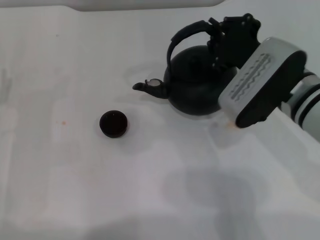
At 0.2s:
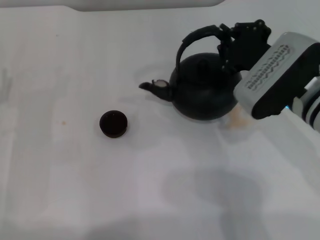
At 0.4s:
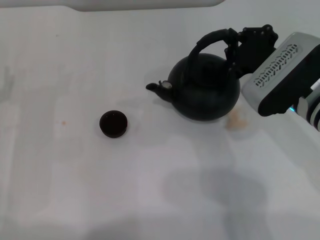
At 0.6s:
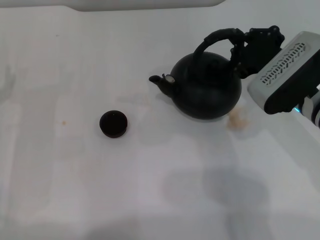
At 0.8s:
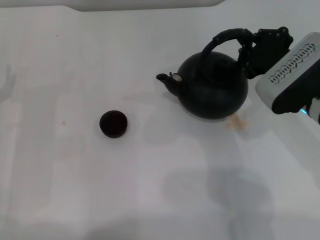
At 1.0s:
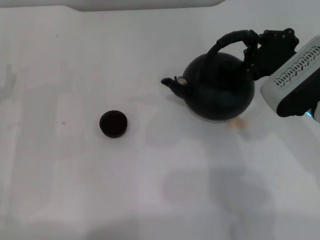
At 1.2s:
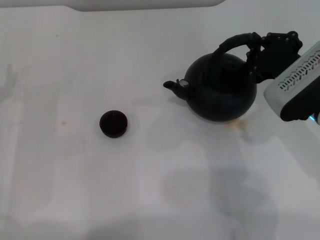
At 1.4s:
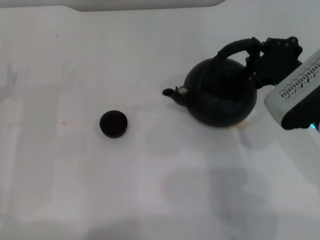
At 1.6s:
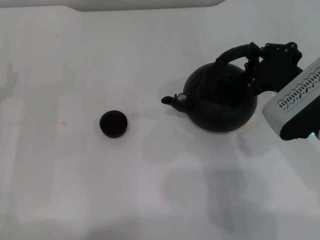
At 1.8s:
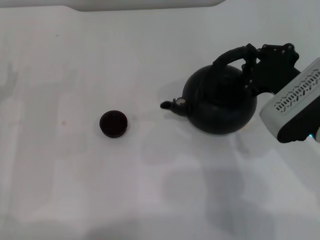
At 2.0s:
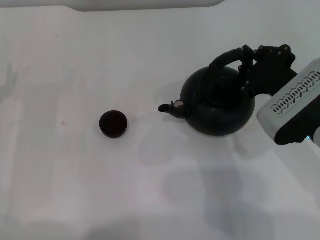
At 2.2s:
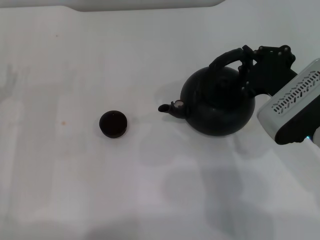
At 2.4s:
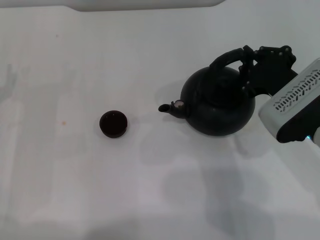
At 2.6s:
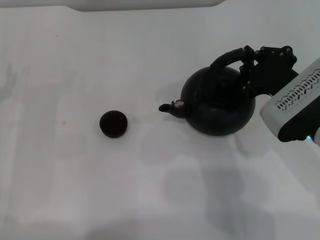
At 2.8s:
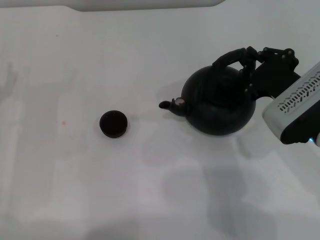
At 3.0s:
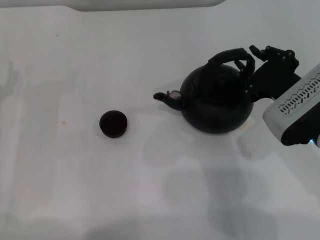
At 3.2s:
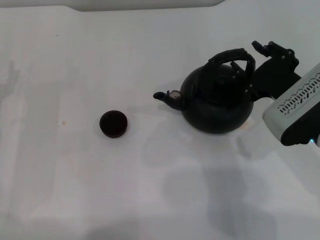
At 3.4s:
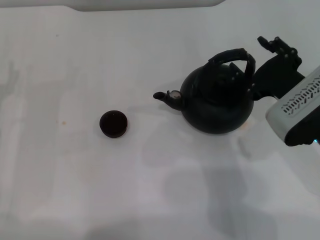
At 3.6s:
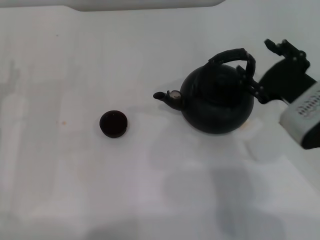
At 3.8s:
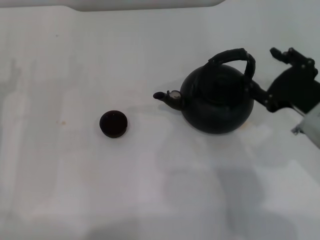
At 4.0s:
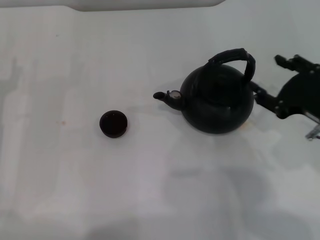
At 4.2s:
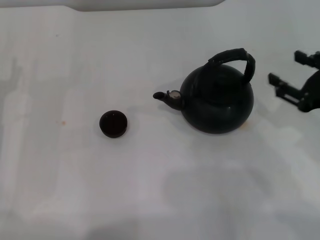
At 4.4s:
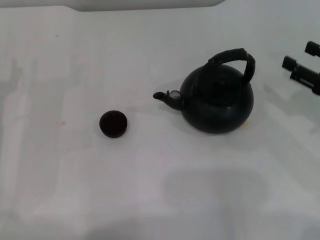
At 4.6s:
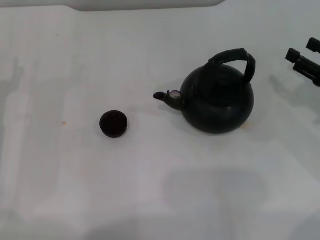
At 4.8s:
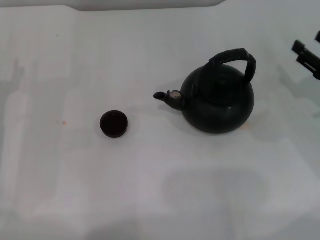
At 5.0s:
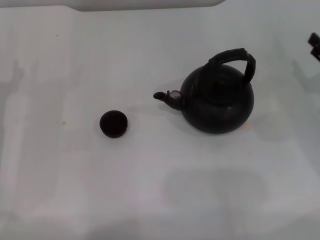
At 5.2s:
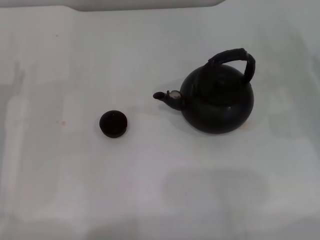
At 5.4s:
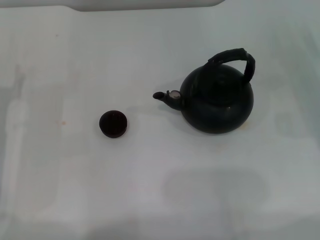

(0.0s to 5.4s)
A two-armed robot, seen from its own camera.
Task of the whole recording: Grasp the handle of the teapot with one hand and pour tea into the teacup.
Step, 0.0s - 3.8s: Put down the teapot with the right gripper.
0.0s - 1.4s: The right gripper moves approximately 5 cm.
1.4s - 2.8s: The grippers stay close to where they were, moving slightly.
2.8s - 4.0s: The right gripper ends up approximately 5 cm from where it was, and opens its fingers.
4.0s - 5.4s: The right gripper goes roughly 15 cm to the right, downward and forward.

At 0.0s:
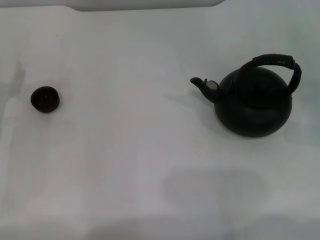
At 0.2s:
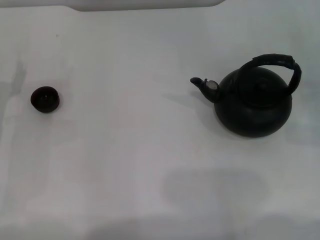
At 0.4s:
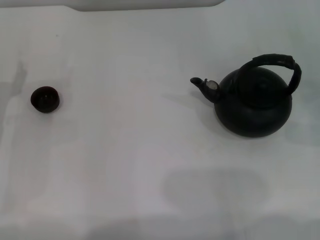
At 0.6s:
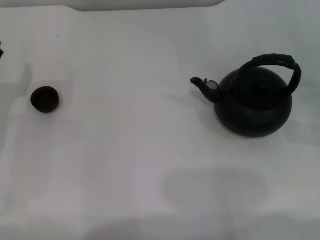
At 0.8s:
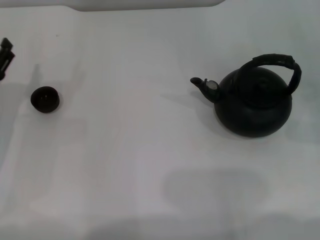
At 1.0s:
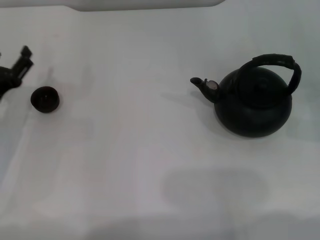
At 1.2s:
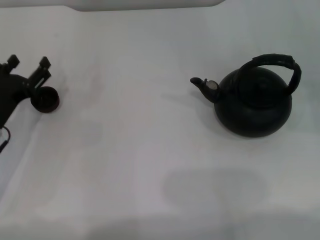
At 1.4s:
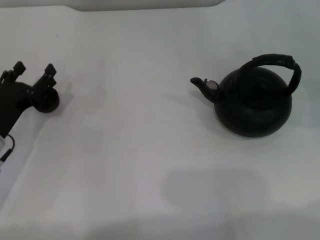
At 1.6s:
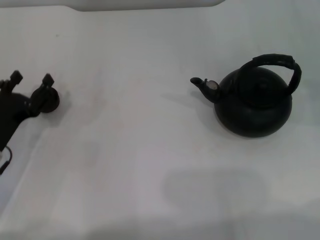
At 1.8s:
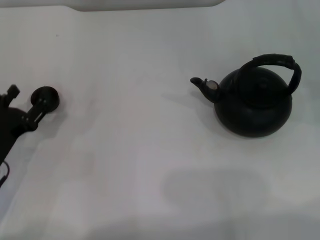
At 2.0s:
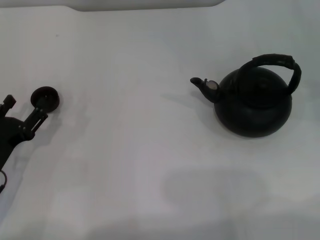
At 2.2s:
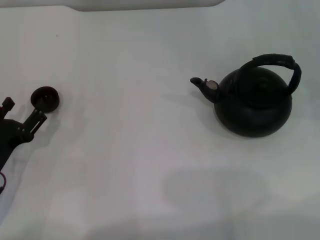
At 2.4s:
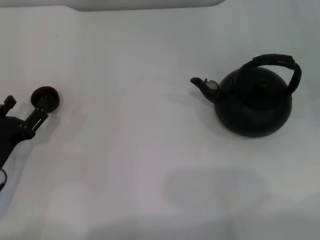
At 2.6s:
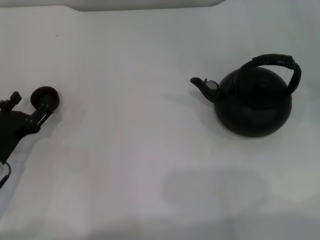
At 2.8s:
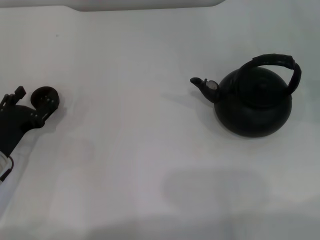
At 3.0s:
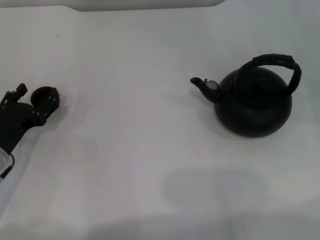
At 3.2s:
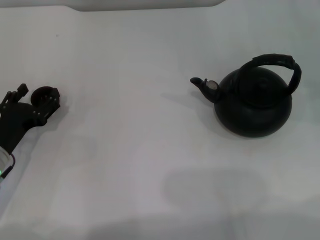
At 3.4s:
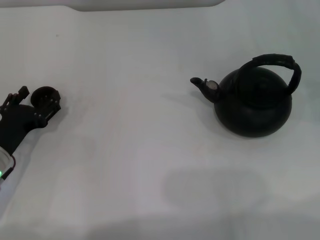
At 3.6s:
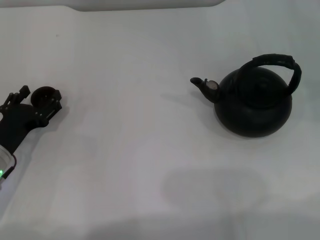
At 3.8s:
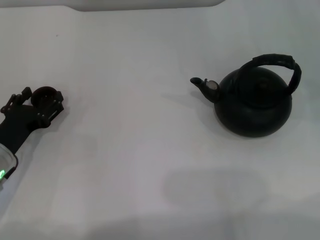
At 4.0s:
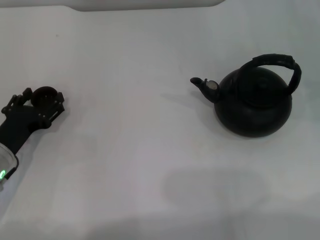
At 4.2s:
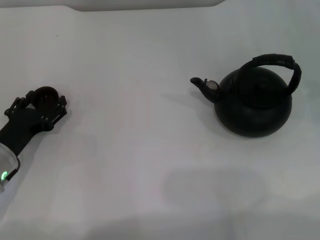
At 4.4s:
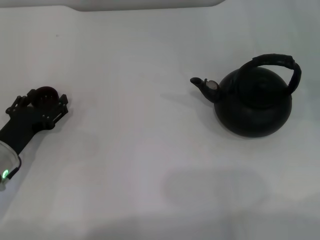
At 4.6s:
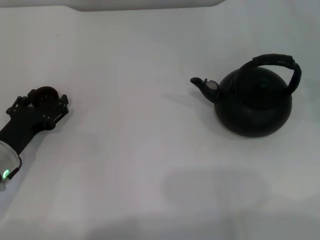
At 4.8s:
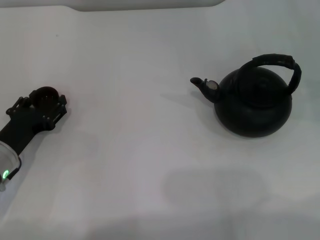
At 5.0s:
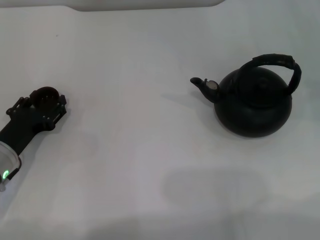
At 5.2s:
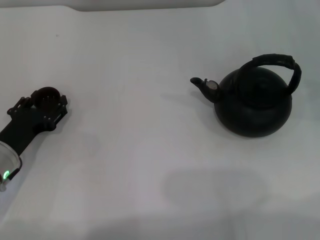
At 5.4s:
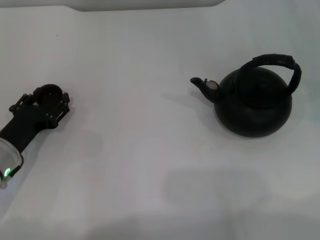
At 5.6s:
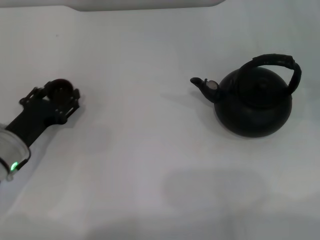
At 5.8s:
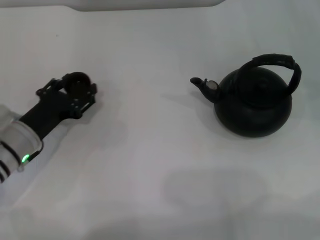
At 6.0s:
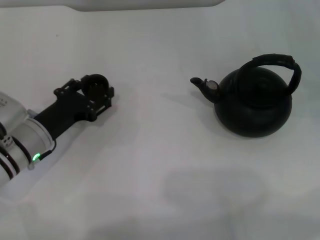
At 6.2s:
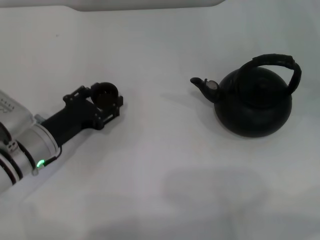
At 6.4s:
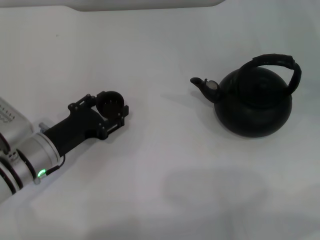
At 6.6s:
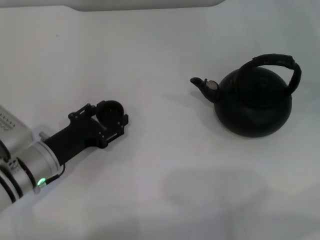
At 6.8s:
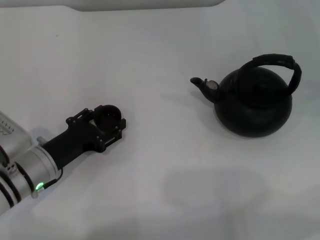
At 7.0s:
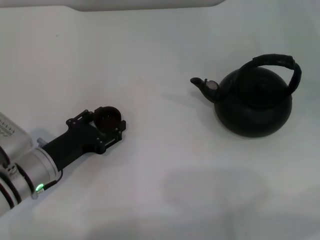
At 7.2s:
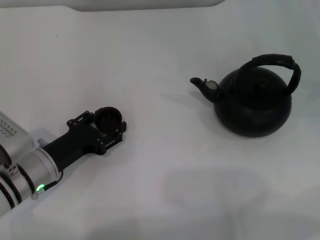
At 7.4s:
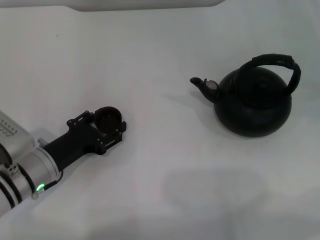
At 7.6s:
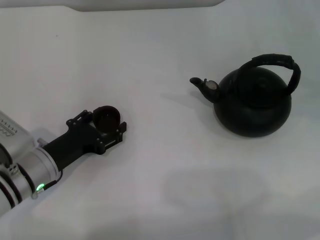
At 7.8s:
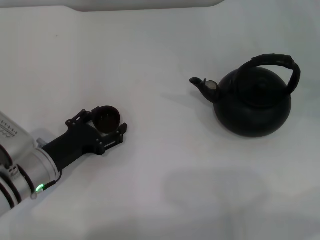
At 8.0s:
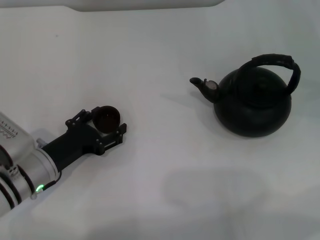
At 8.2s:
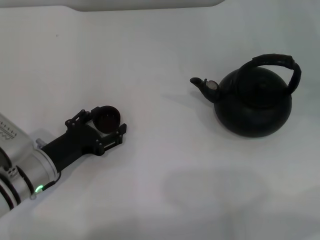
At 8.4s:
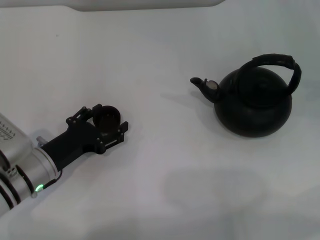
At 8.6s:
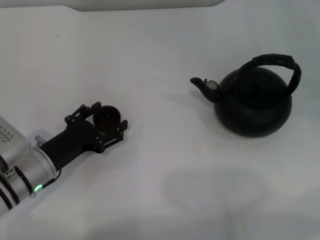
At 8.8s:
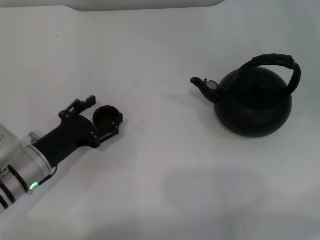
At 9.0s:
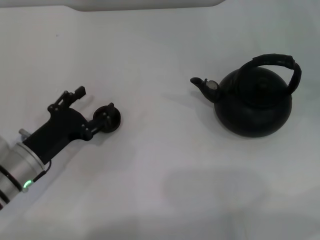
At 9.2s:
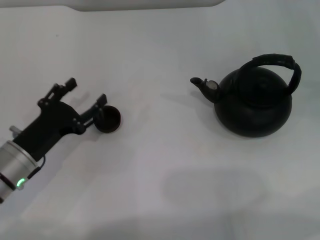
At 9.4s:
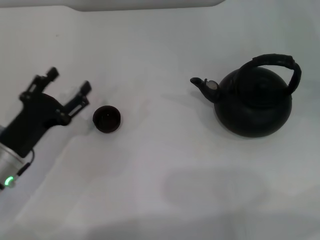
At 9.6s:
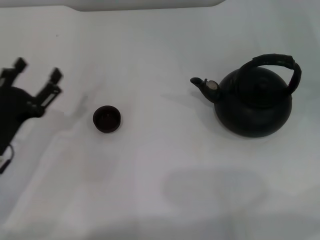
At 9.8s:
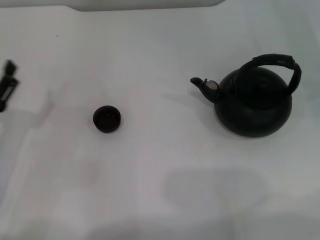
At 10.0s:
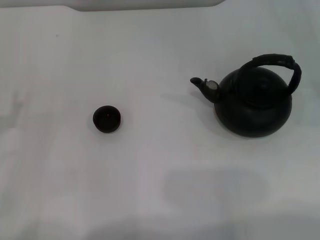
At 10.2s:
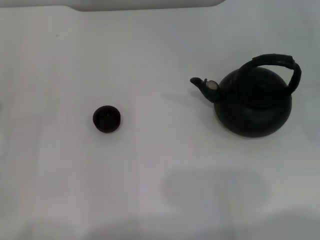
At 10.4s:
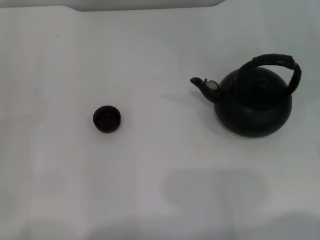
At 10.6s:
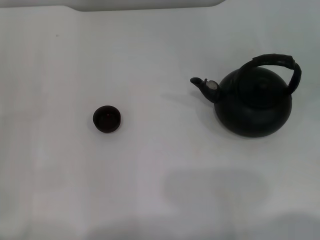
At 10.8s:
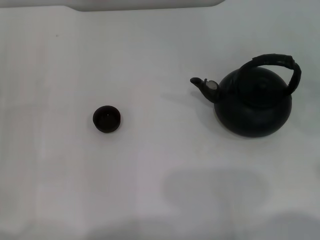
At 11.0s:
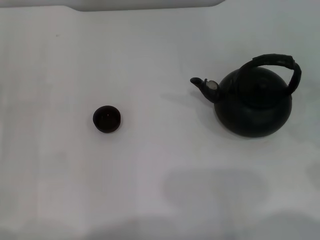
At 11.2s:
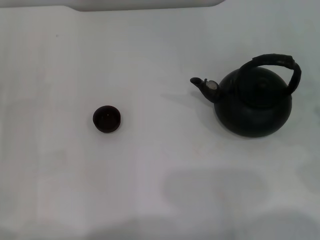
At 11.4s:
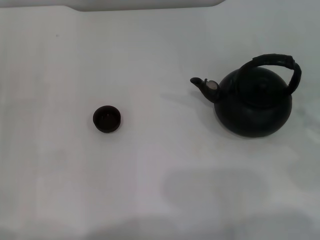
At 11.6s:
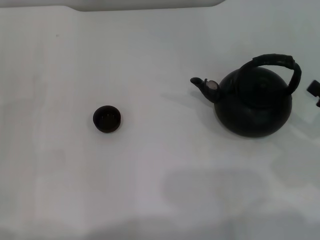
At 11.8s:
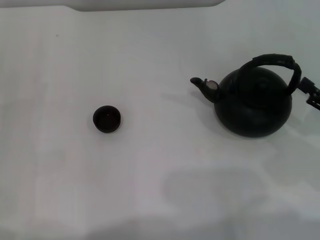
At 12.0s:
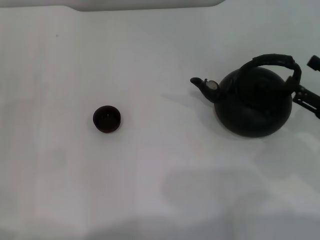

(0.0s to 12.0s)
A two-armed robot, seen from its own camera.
Task of the whole recording: Grasp the handle of the teapot with one hand and pour tea into the teacup.
Step, 0.0s - 5.8s: Pick up the teacup with the left gripper.
Step, 6.0s - 9.0s: Place the teacup in the center of view with the left gripper.
0.0s - 1.6s: The left gripper ends up roughly 5 cm from where it was.
1.6s - 3.0s: The grippers move only a little.
3.0s - 4.4s: Neither gripper changes place.
4.4s - 6.0s: The left gripper ends up approximately 5 cm from where it was, and closes.
6.0s - 7.6s: The grippers move only a little.
7.6s - 9.0s: The left gripper opens.
9.0s - 10.4s: The left gripper is displaced to the left by roughly 10 cm.
10.4s - 12.0s: The right gripper shifts some 15 cm to the left and downward.

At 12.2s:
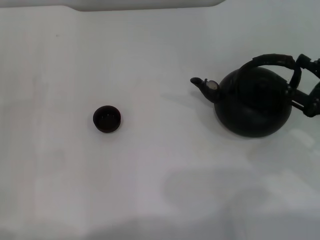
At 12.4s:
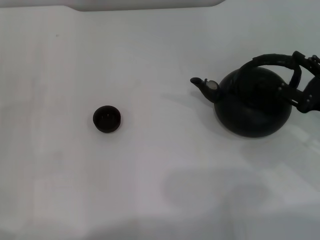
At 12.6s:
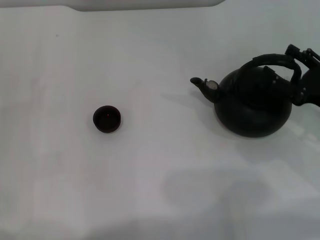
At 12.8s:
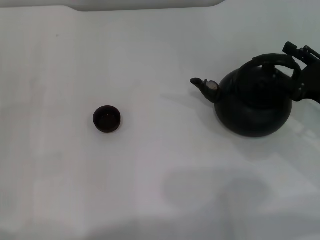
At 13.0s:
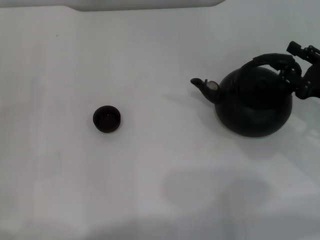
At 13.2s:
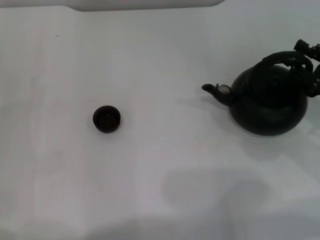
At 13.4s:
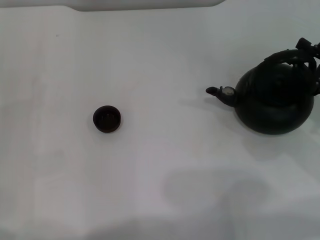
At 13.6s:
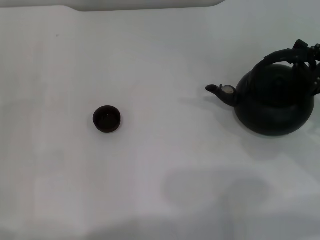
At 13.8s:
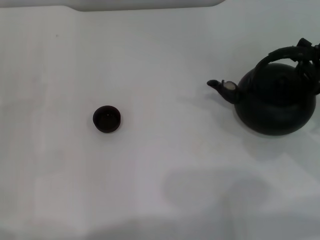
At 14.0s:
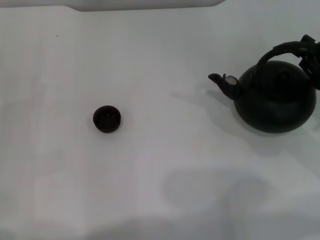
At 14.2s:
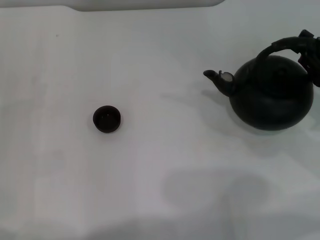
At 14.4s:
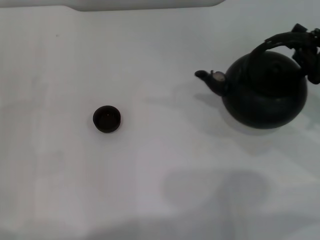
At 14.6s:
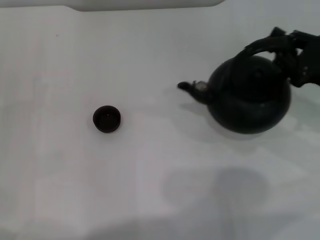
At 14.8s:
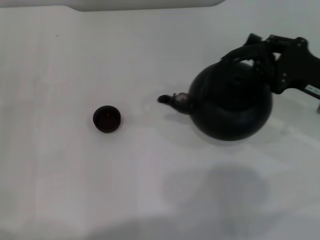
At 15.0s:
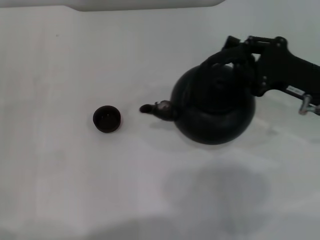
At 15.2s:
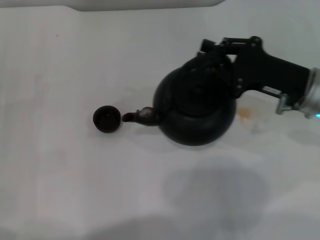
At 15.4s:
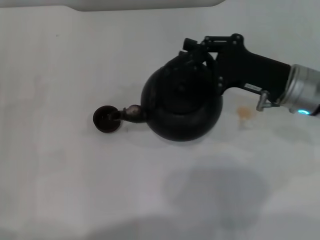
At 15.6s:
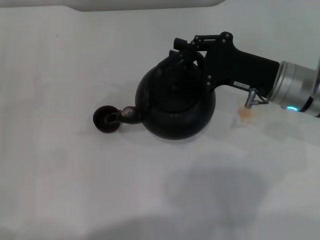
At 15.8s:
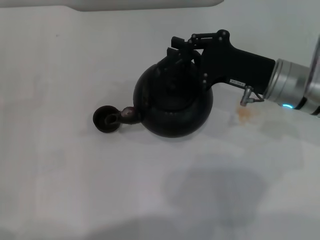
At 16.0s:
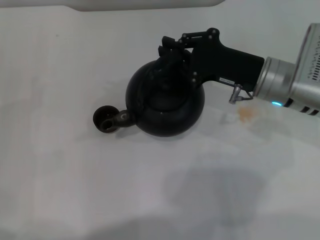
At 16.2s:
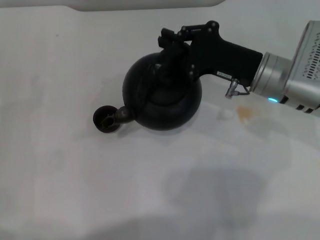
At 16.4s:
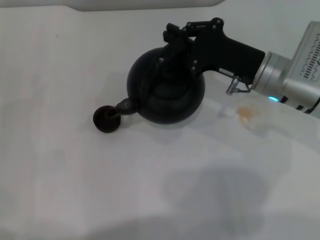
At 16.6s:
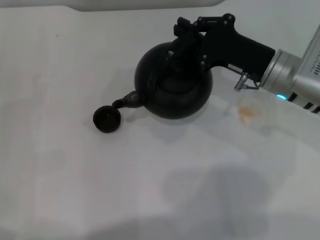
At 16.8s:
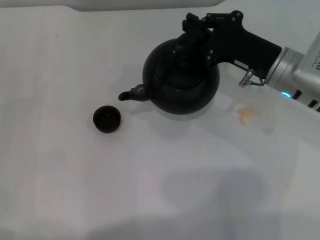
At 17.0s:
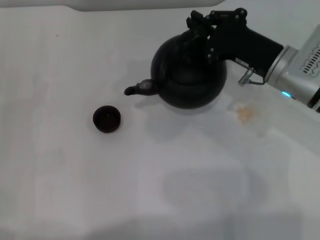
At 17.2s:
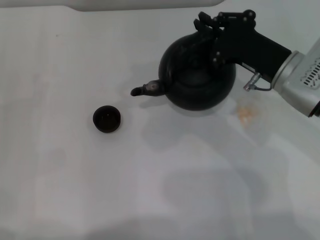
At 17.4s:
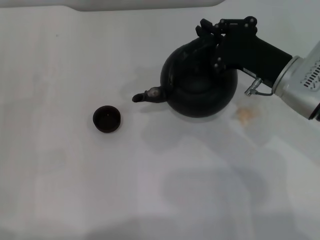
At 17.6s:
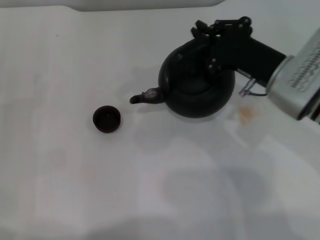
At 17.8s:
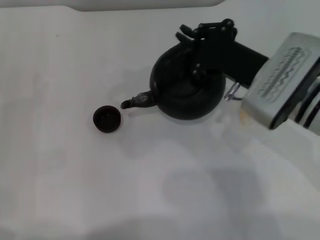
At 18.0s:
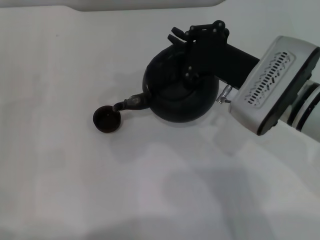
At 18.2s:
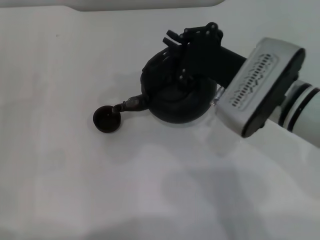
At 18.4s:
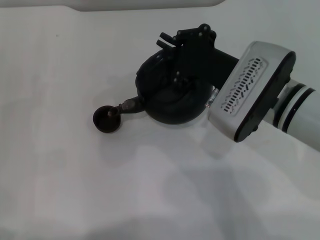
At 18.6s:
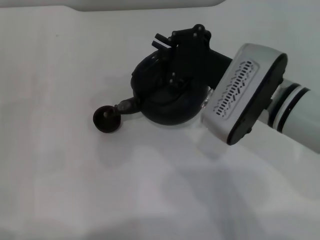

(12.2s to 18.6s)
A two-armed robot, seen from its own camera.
Task of the whole recording: Grasp the handle of the teapot with one hand and pour tea into the teacup.
Step, 12.2s - 14.2s: Pick up the teapot with the right gripper.
12.2s - 13.8s: The right gripper closes.
13.8s - 15.4s: The right gripper shifts some 10 cm to the left.
17.0s - 18.6s: The right gripper travels to the left by some 5 cm.
